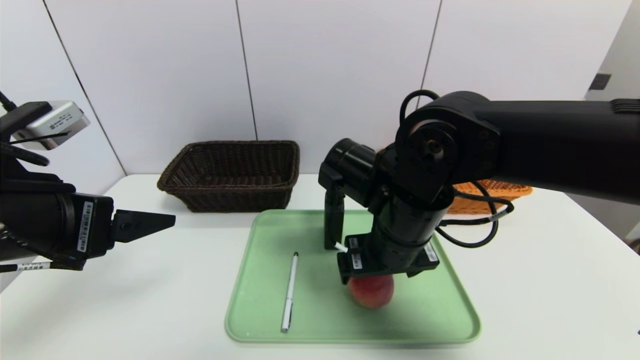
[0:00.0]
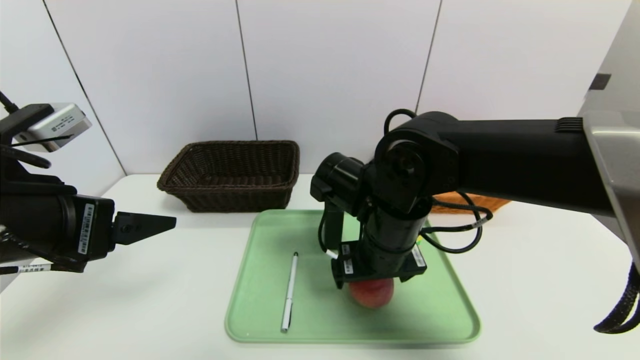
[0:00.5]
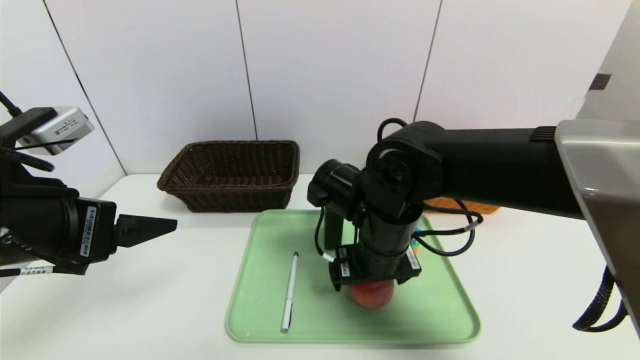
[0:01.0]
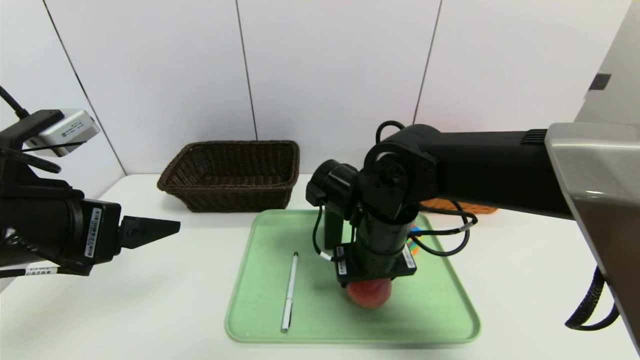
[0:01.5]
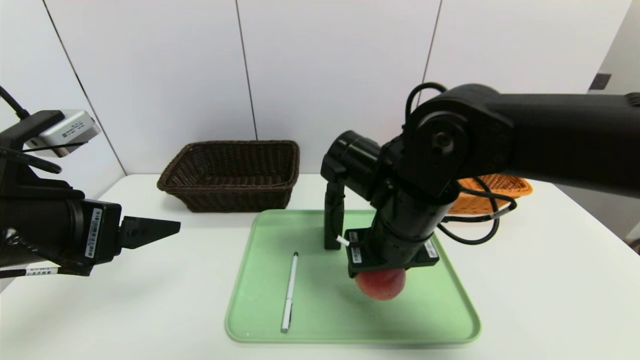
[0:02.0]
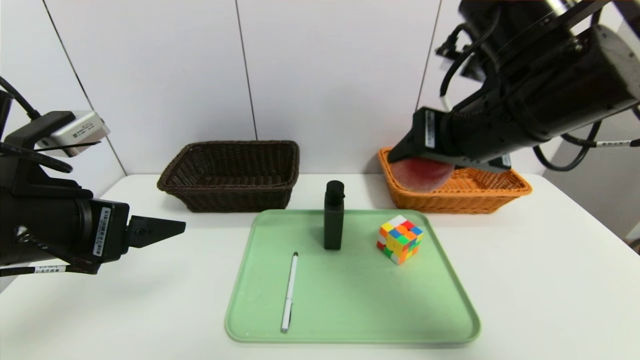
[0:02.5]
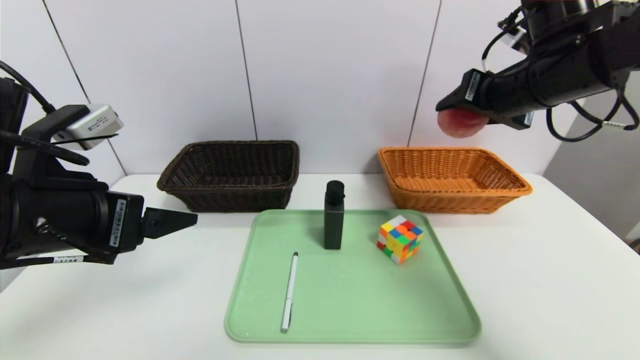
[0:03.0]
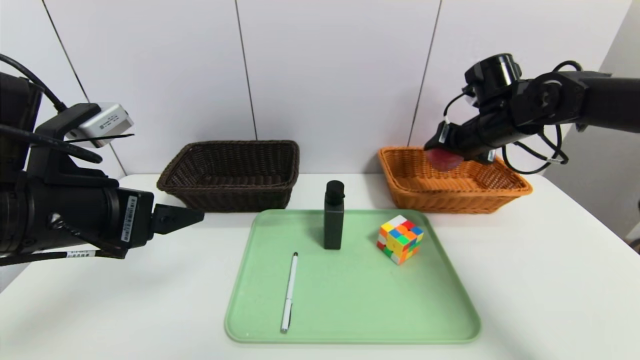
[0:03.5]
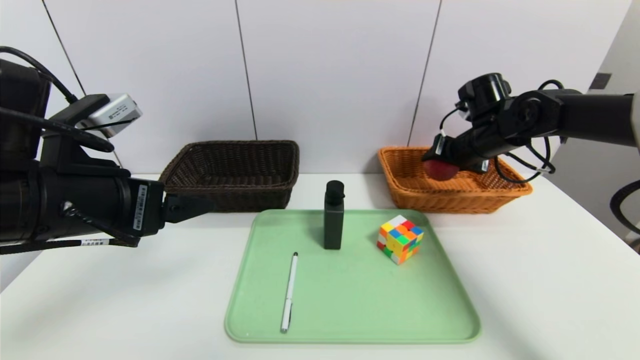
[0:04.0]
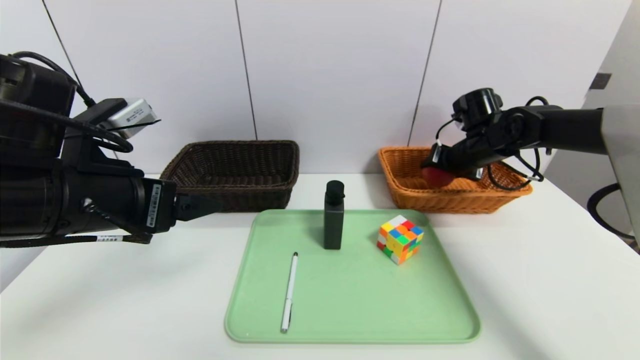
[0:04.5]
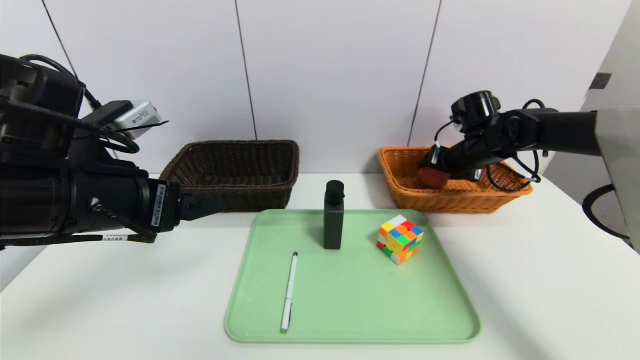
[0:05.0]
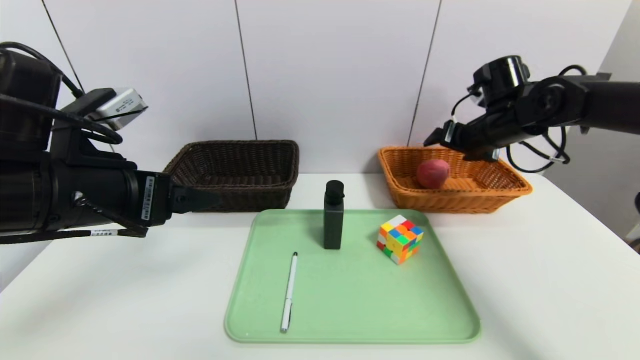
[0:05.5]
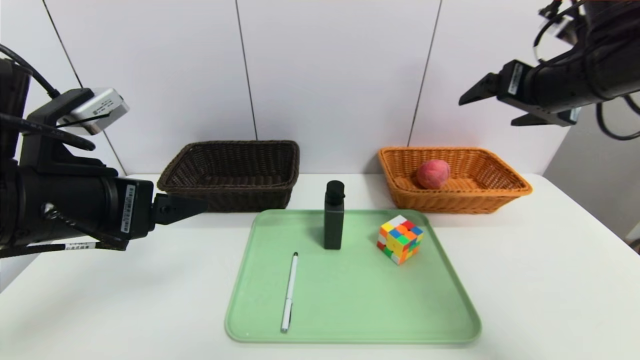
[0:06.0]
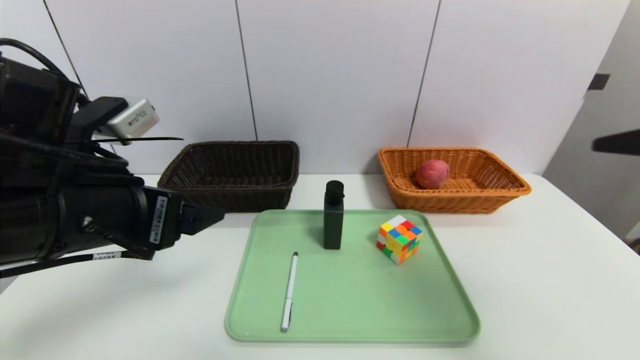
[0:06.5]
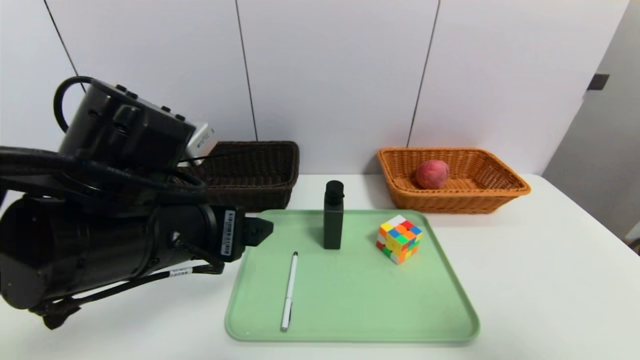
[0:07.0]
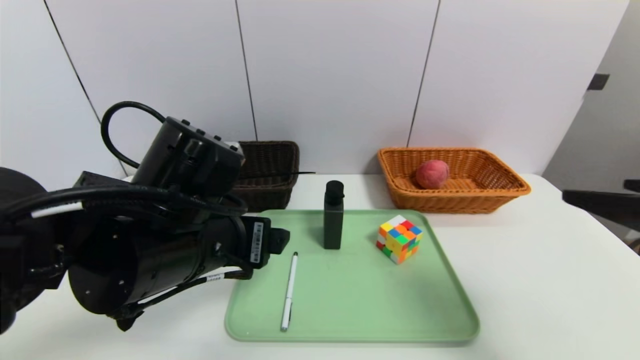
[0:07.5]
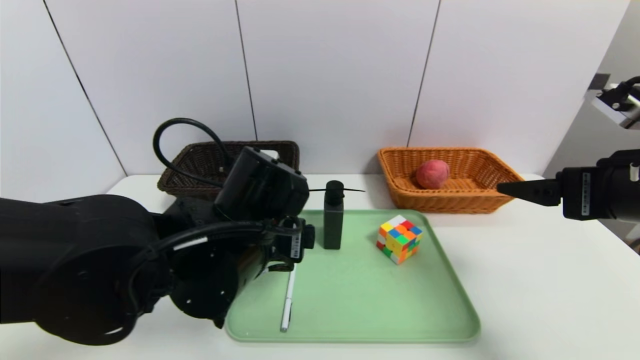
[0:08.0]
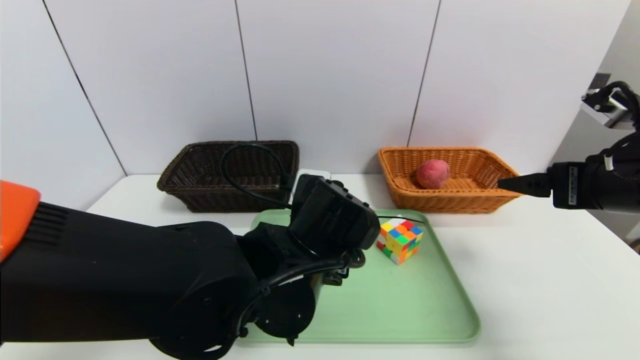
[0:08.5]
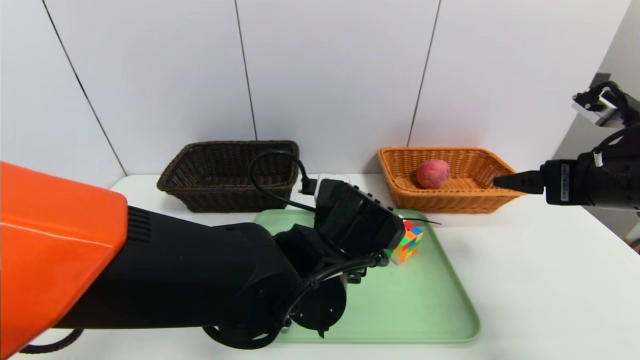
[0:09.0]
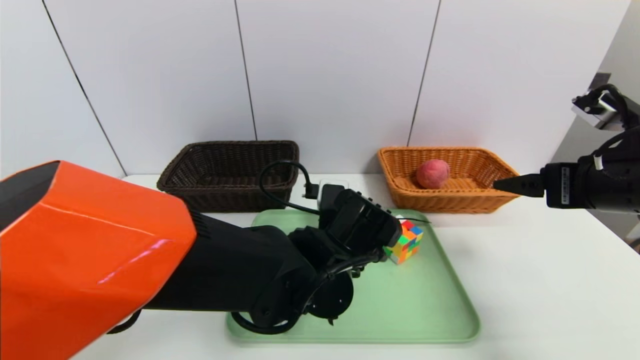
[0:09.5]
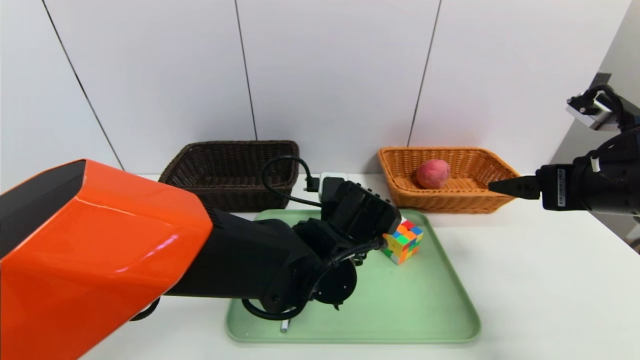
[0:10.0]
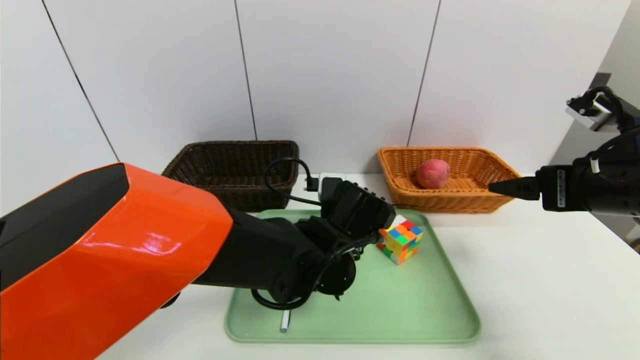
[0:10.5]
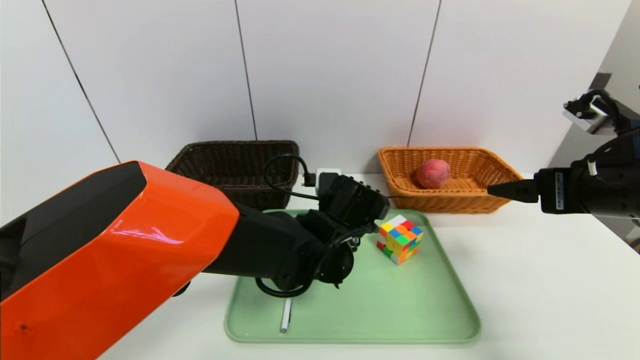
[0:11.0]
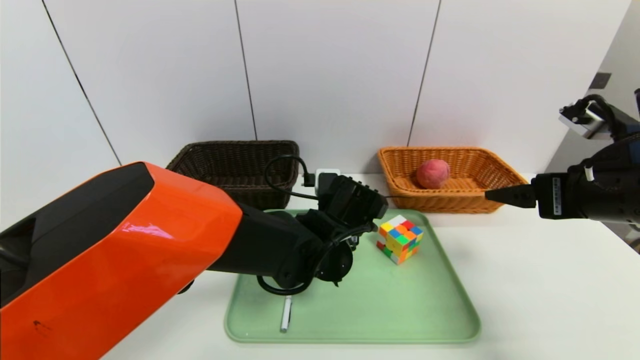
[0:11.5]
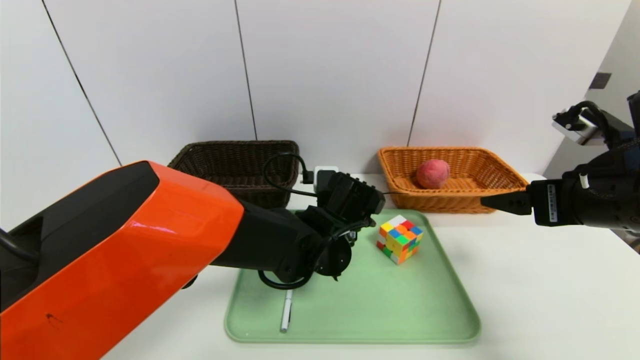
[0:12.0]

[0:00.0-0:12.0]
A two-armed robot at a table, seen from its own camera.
Task of the whole recording: place the food in the right basket with the right gripper, and place the non food items in the left basket with the left gripper.
Step, 0:00.0 to 0:05.0: Grasp the apple and put it in the right basket.
0:00.0 to 0:02.0: The right gripper closes up.
0:02.0 to 0:04.0: The right gripper moves to the right and forward, roughly 25 cm.
0:04.0 to 0:06.0: The right gripper moves upward and backward, roughly 20 cm, and opens.
0:06.0 to 0:08.0: The left gripper travels to the right and downward by roughly 15 cm; the right gripper travels backward and downward by some 15 cm.
0:08.0 to 0:10.0: The left gripper shifts about 10 cm to the right, downward and forward.
0:10.0 to 0:12.0: The grippers make only small movements.

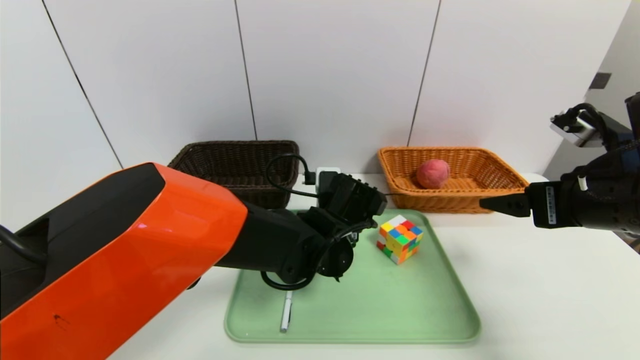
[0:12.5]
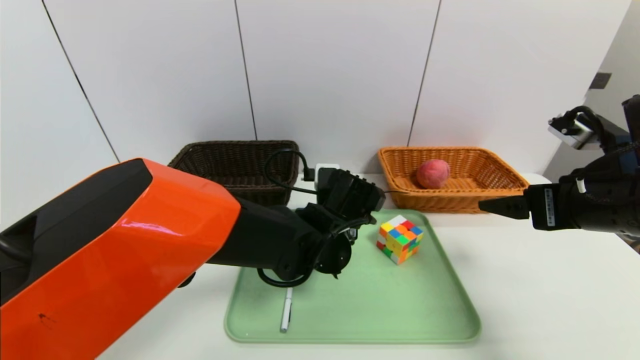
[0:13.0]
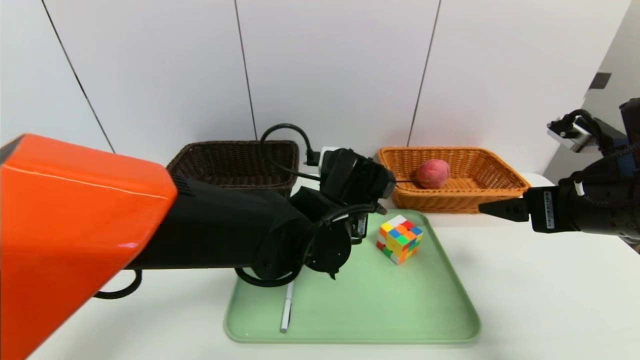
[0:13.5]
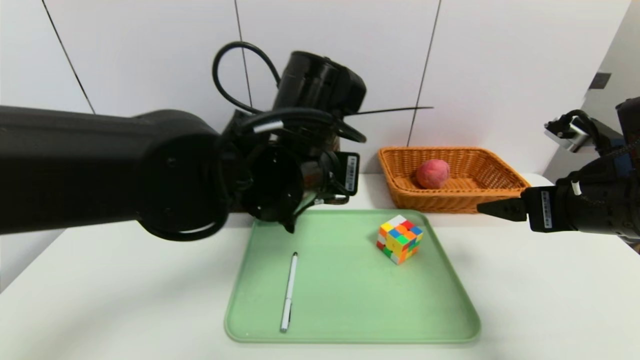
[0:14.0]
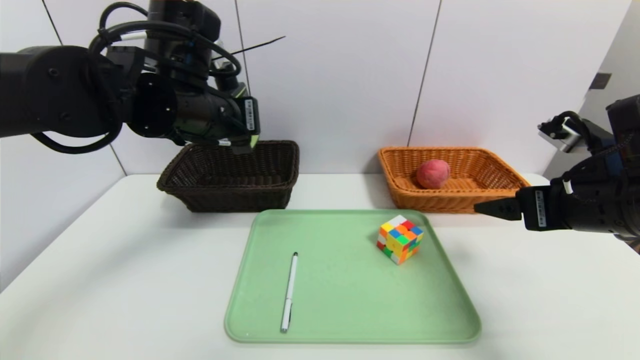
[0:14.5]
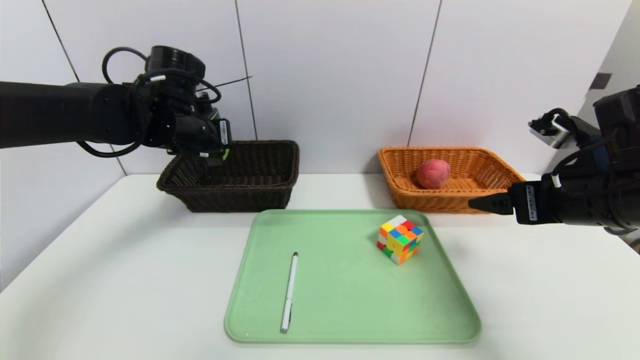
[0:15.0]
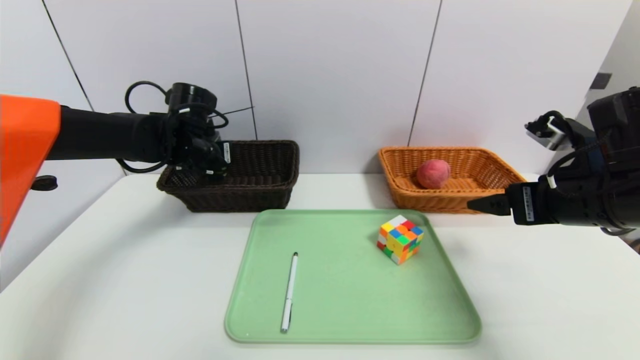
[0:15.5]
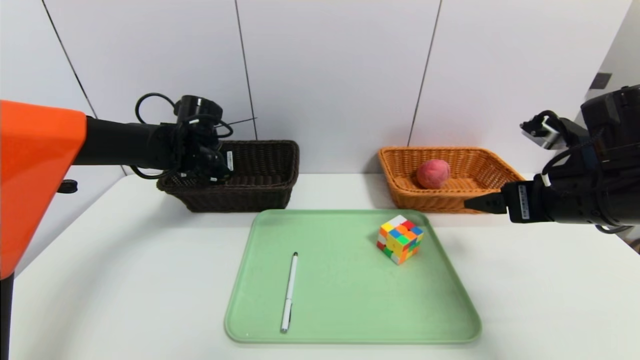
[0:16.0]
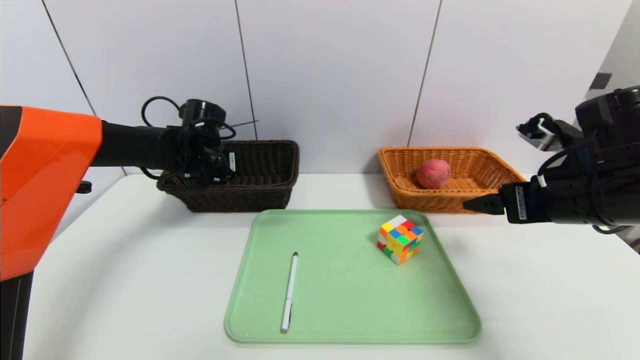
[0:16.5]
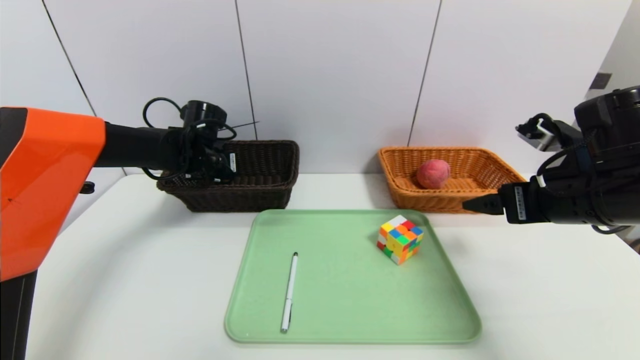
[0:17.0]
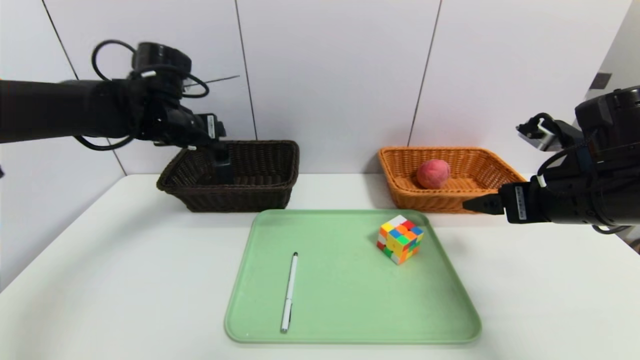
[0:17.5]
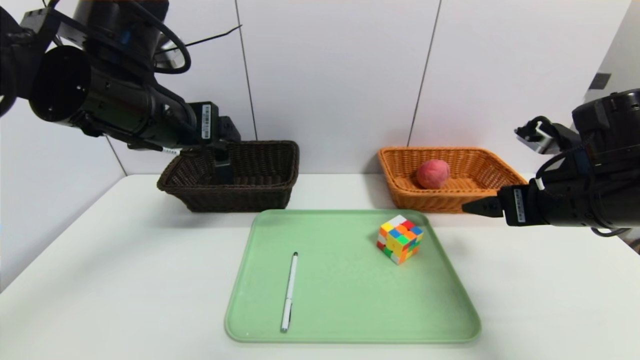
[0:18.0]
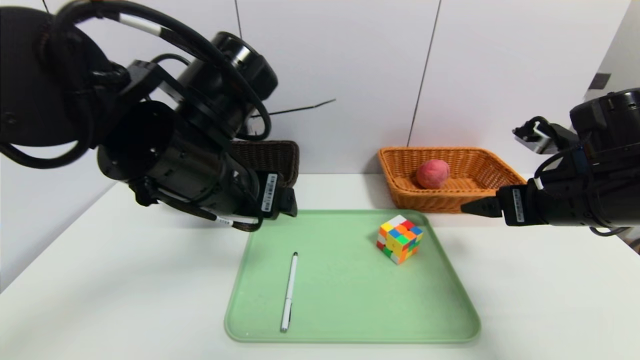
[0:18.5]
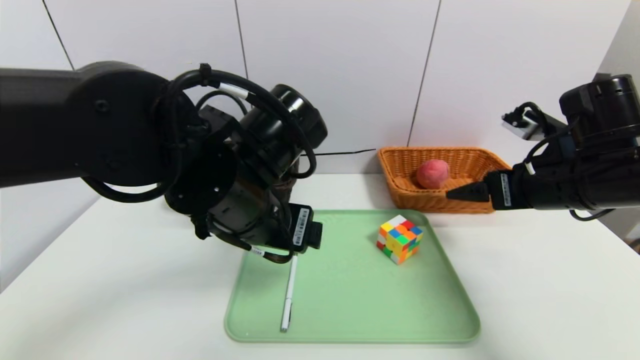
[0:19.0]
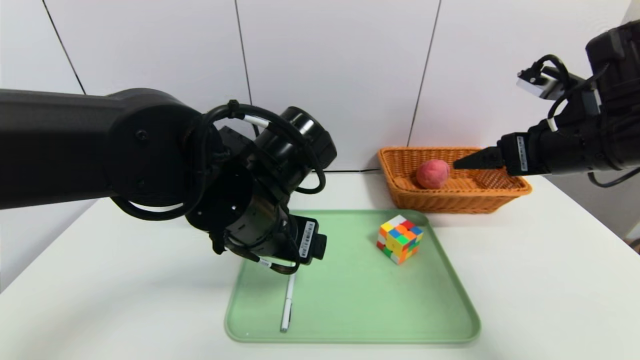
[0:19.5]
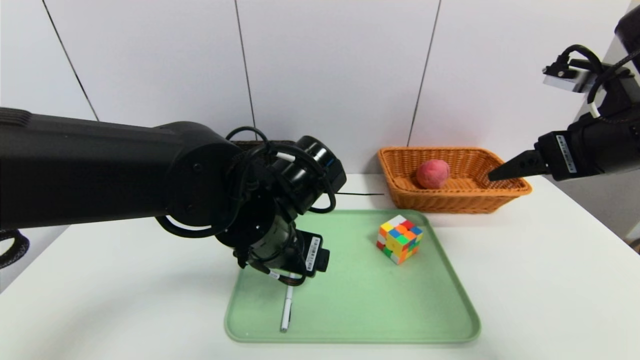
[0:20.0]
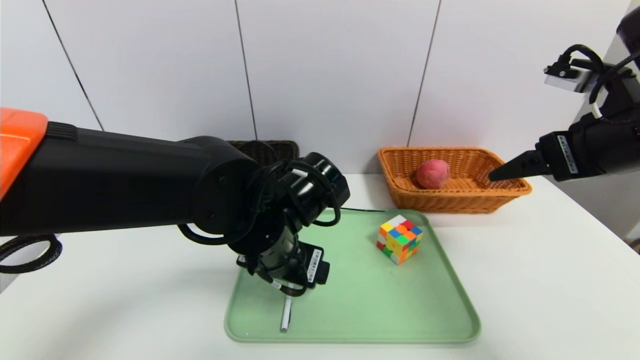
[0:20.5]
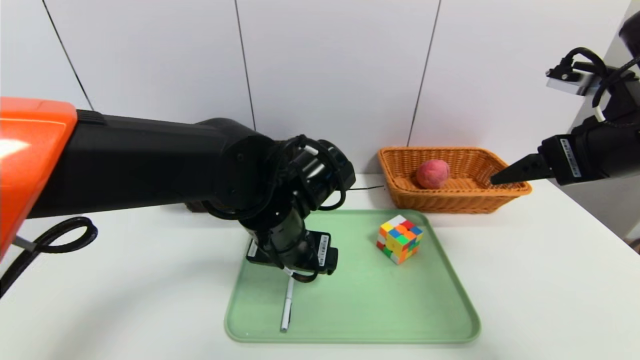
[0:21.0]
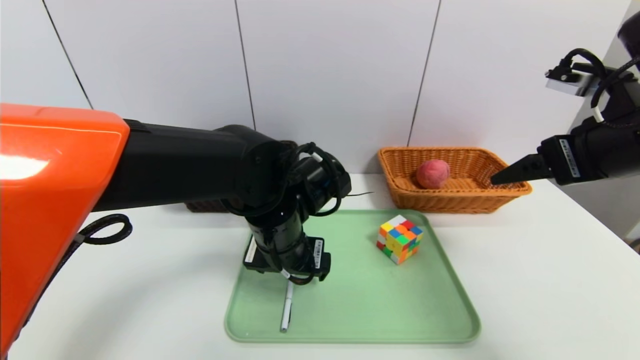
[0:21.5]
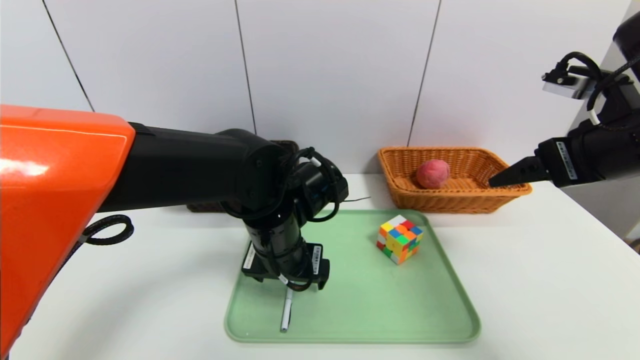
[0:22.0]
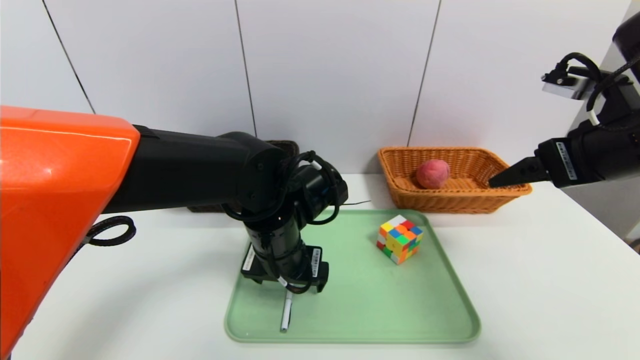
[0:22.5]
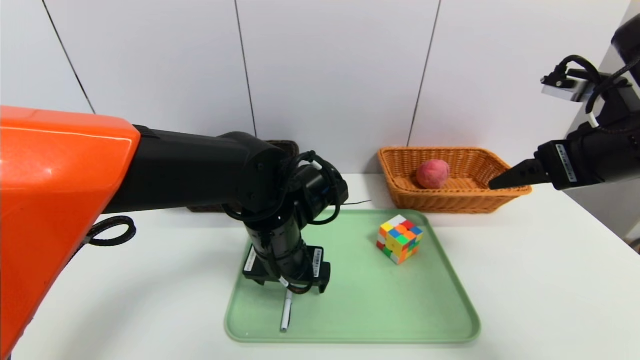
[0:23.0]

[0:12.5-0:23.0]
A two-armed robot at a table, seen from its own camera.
Task of the whole recording: place the food in the right basket with the right gripper, and place the non food items in the left basket with the left gripper.
Step, 0:12.5 to 0:17.0: Grasp the hard cleanser and put it in the left basket.
0:12.5 to 0:14.5: The left gripper shifts some 25 cm upward and to the left.
0:14.5 to 0:16.5: The left gripper moves forward, downward and to the left, some 20 cm.
0:16.5 to 0:19.0: The left gripper travels backward and to the right by roughly 25 cm, and opens.
0:19.0 to 0:21.0: The left gripper moves downward, approximately 5 cm. Meanwhile the right gripper heads upward, covering about 10 cm.
0:21.0 to 0:23.0: The grippers move only a little.
